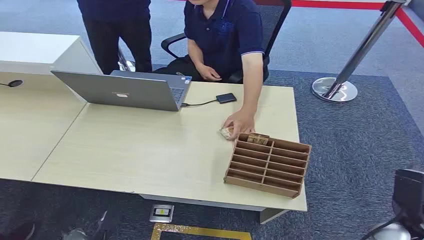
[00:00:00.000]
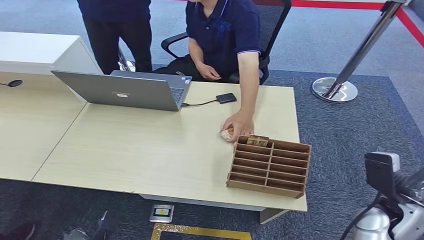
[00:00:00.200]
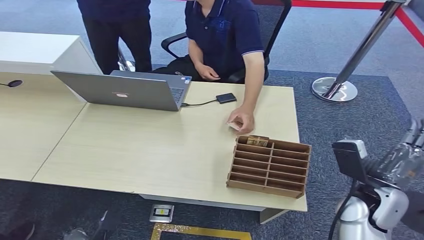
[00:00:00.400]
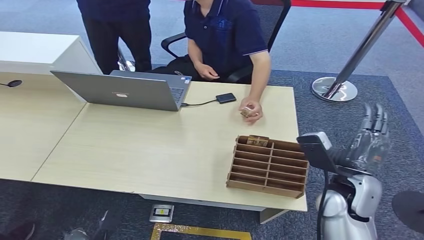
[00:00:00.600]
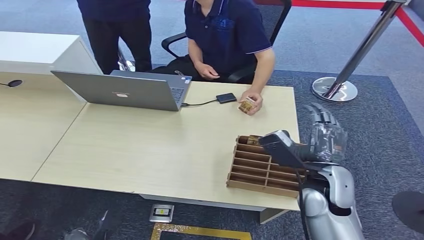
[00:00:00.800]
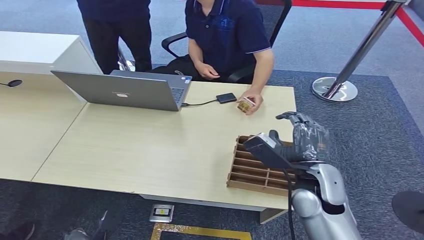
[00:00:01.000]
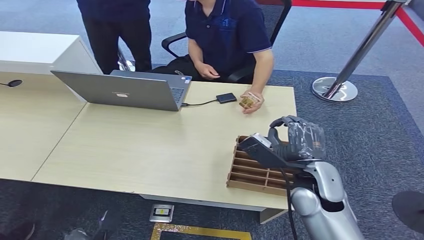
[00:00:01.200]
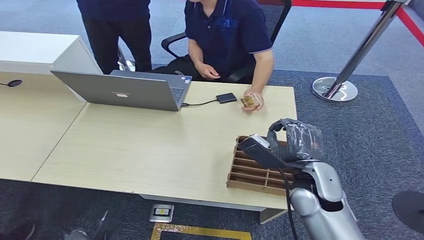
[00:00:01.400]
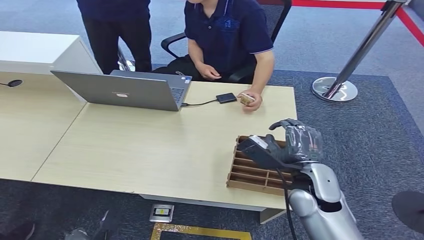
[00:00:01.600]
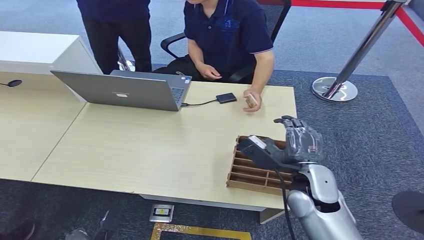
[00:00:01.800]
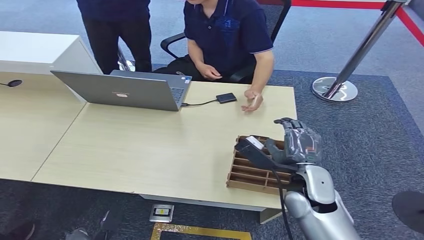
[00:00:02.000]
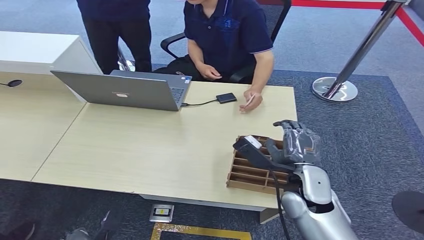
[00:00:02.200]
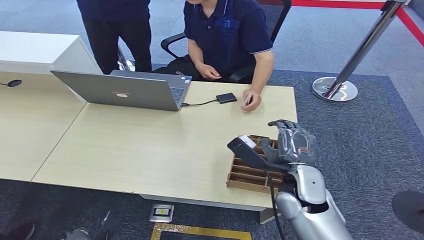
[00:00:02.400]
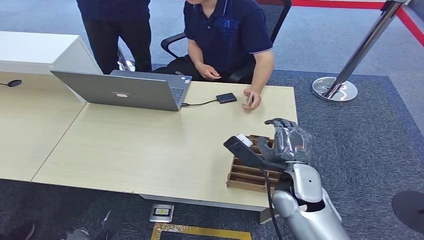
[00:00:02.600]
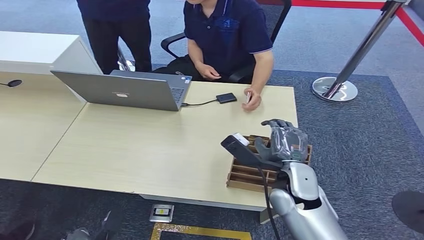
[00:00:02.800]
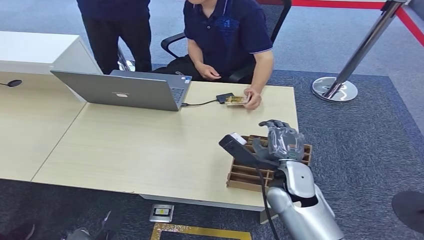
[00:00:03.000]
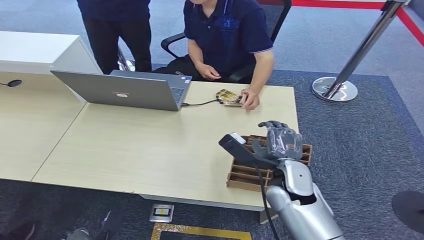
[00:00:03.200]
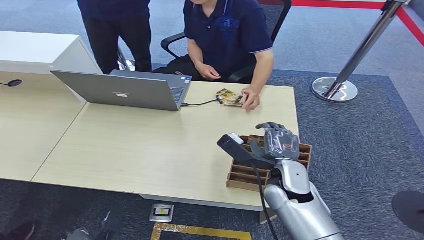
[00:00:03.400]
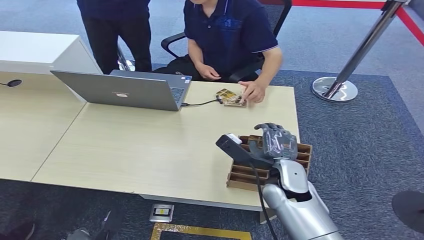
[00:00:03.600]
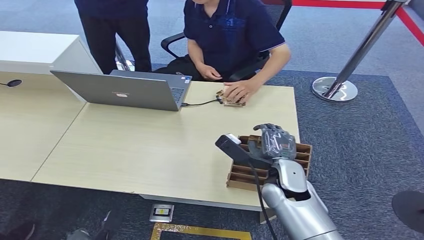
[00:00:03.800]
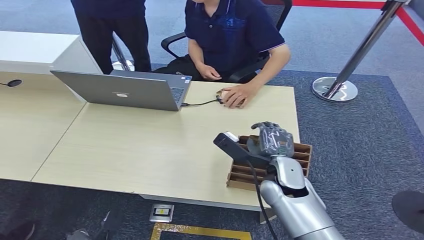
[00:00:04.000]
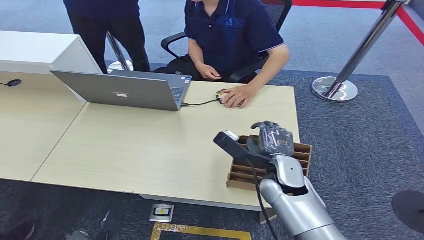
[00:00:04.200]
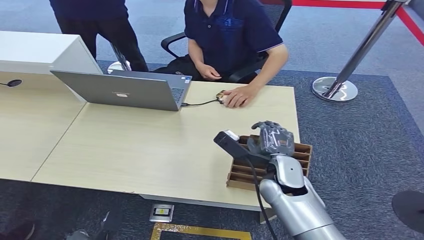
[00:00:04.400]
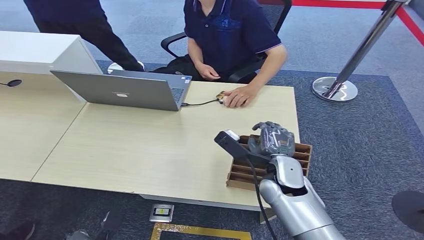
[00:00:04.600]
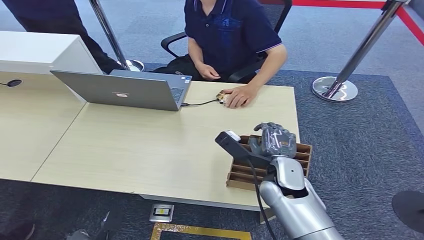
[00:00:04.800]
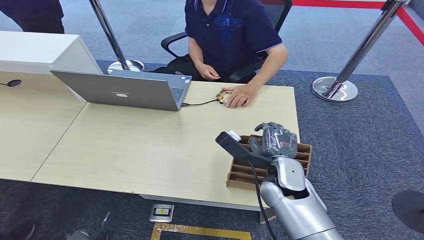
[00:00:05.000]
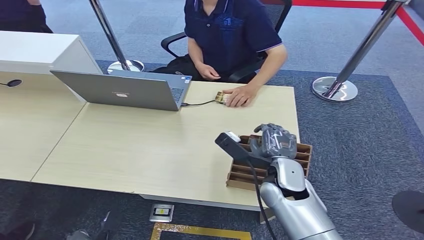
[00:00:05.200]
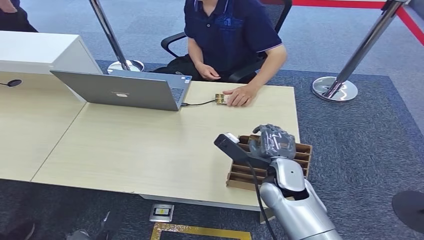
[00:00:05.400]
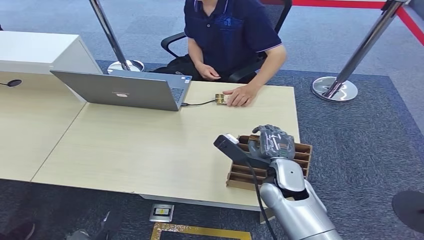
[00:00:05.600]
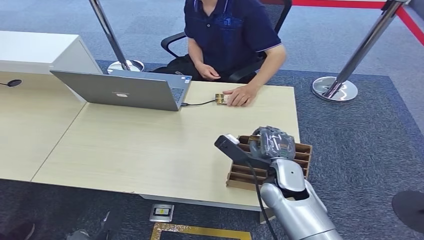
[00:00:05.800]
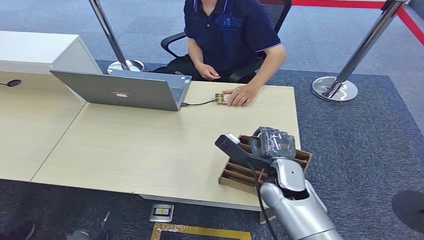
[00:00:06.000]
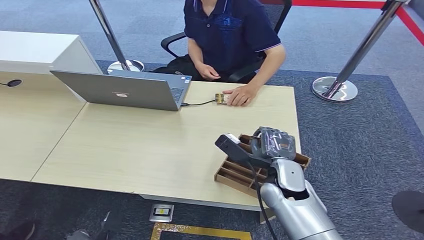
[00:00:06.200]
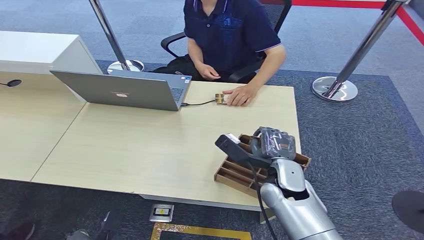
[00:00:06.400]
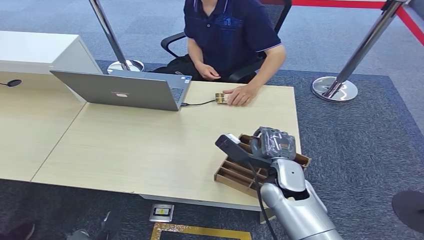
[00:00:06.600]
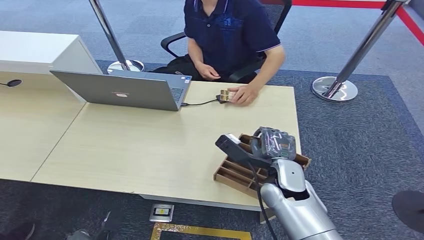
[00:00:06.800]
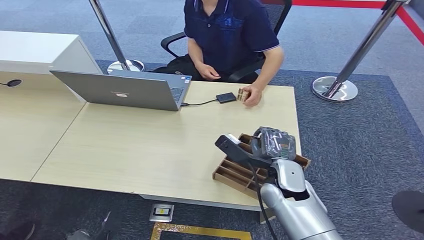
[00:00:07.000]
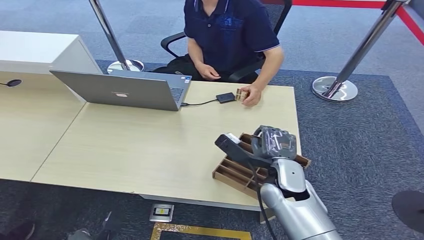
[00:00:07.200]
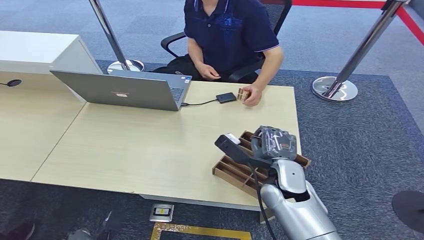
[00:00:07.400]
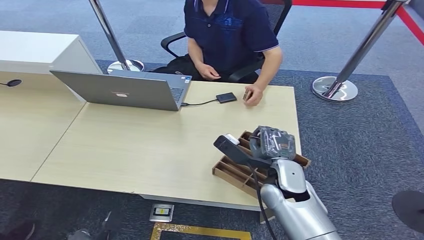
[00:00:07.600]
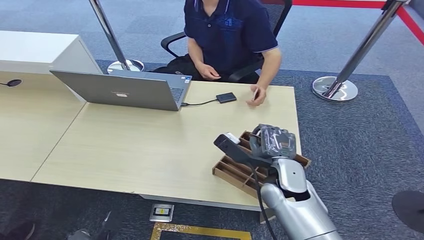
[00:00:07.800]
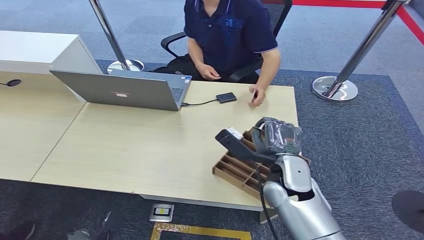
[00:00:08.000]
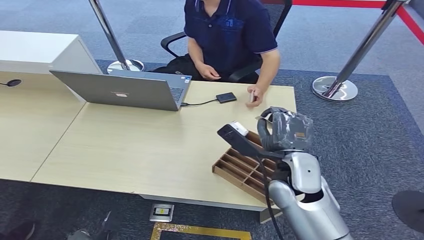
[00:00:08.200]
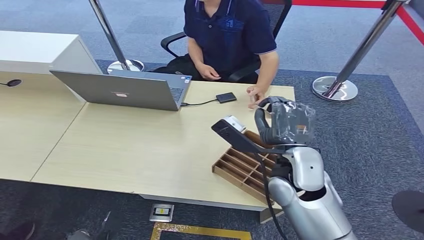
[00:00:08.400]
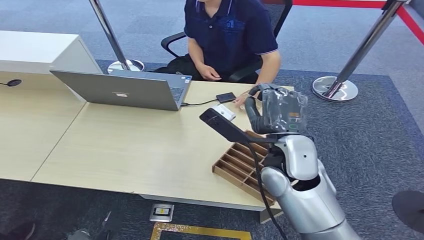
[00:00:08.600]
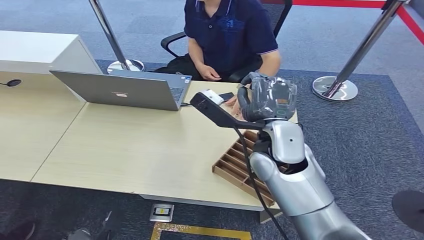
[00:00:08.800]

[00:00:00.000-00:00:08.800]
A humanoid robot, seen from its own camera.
Step, 00:00:00.000 to 00:00:07.000: Pick up the key card from the card box.
Step, 00:00:07.200 to 00:00:08.800: Hand the key card to the target.
00:00:01.400 to 00:00:04.400: The hands move only a little.
00:00:04.400 to 00:00:07.400: The two hands keep their place.
00:00:07.400 to 00:00:08.800: The right hand travels upward by roughly 15 cm.
